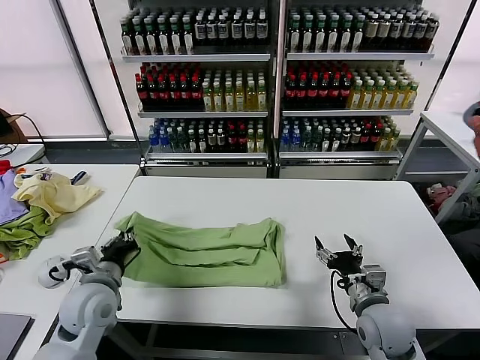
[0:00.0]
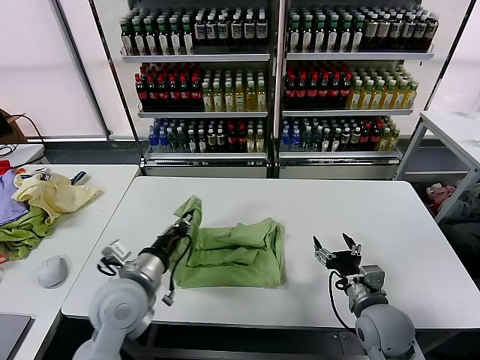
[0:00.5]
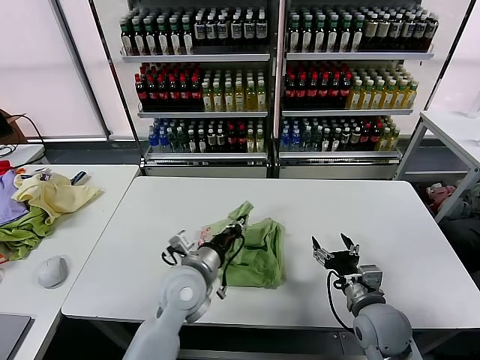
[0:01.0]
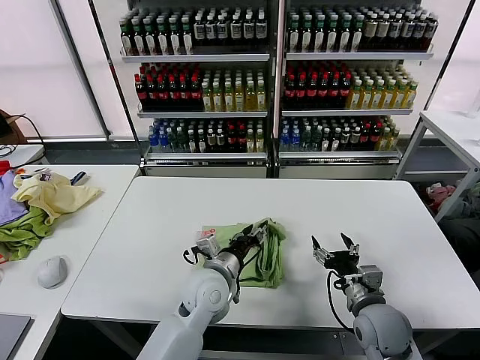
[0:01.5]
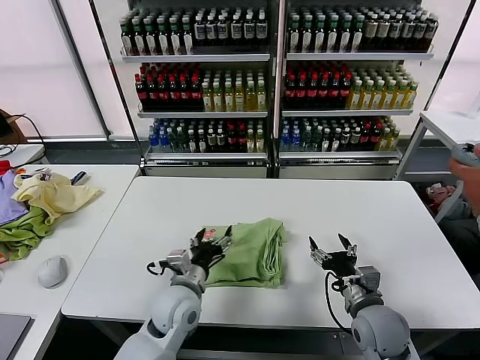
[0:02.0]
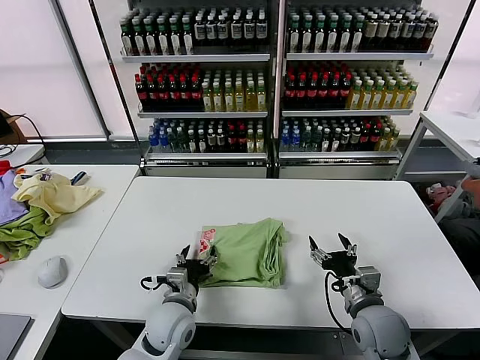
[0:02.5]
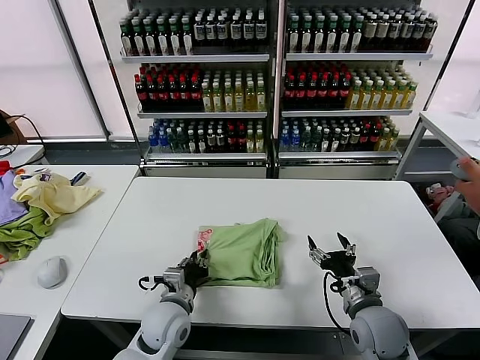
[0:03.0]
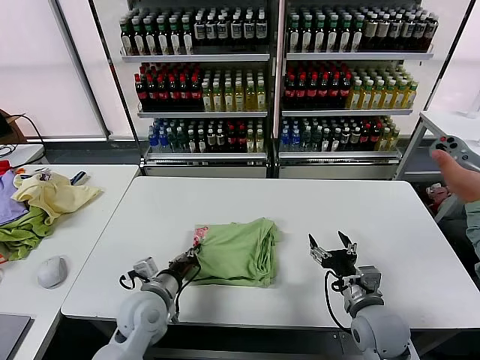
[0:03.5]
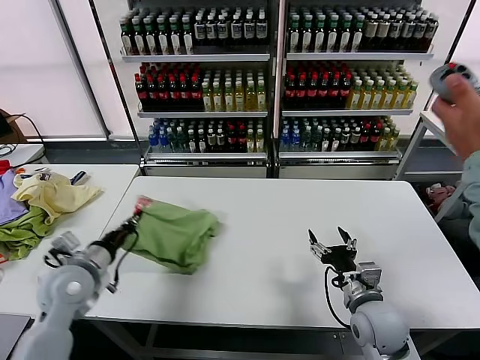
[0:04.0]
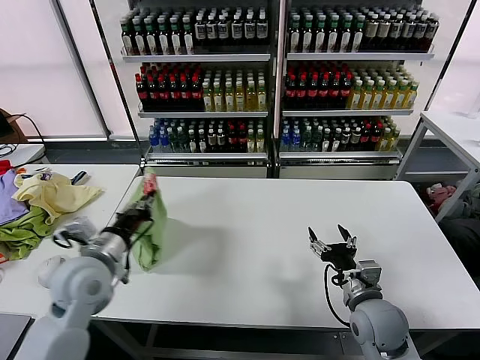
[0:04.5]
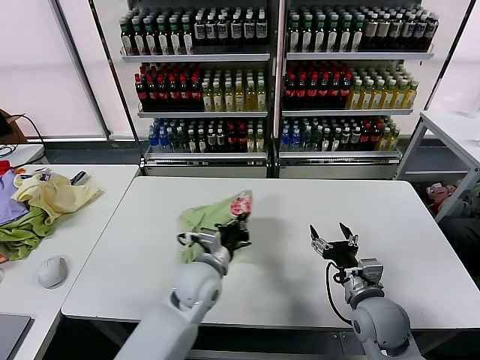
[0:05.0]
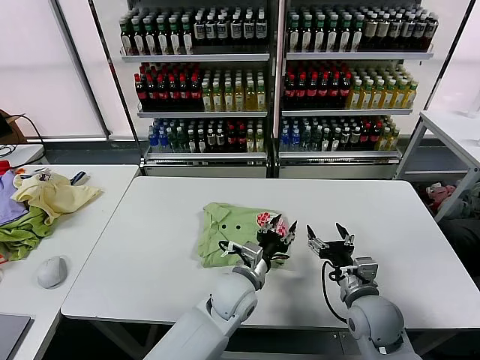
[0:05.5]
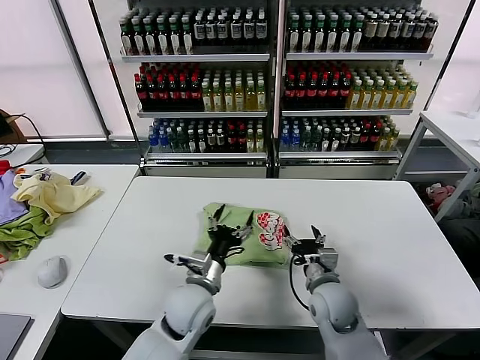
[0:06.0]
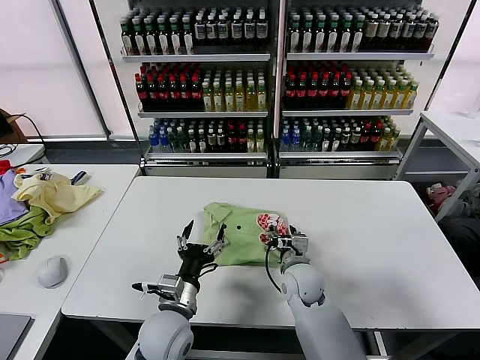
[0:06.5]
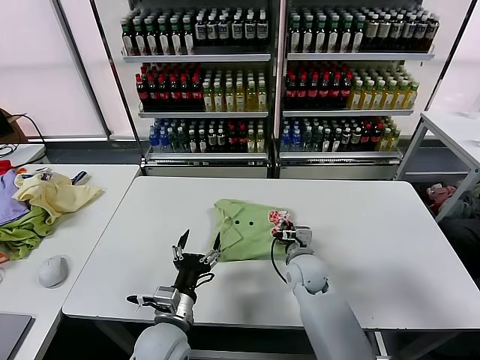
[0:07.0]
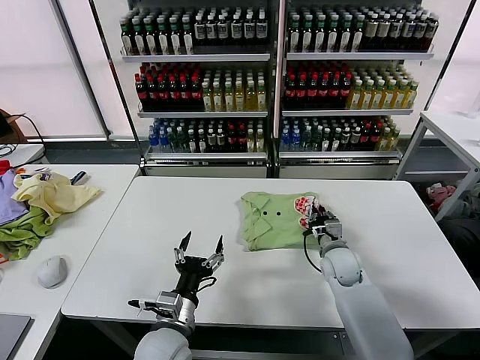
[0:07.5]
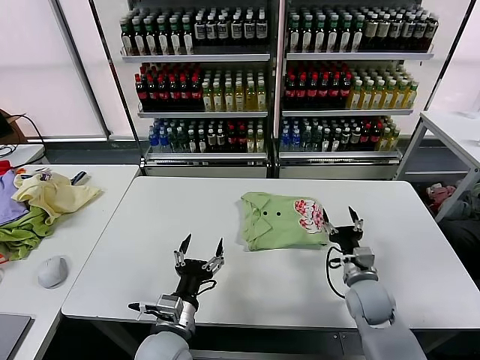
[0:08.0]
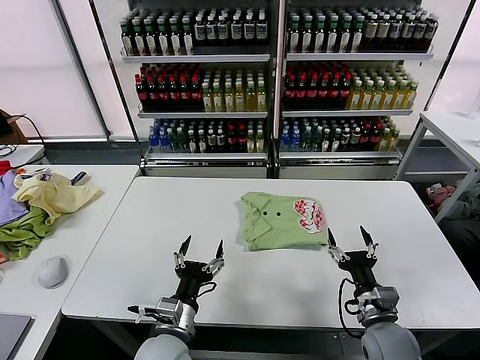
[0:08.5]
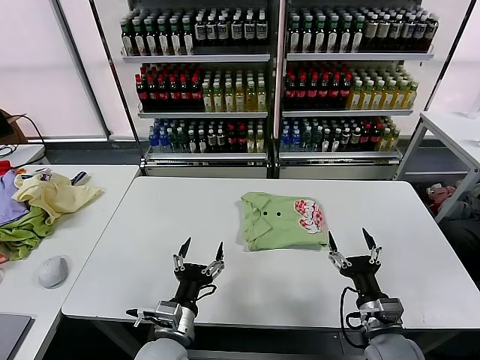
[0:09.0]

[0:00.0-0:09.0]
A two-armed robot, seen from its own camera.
Task of the whole recording: fold and organize the clothes.
Step, 0:00.0 to 0:01.5: use the left gripper to drag the left edge of the fabric to the left and folds it over the right edge.
Step, 0:02.0 to 0:05.0: Flip the folded clothes over with left gripper.
Step, 0:06.0 to 0:07.5: Drag the clothes to the center of the table.
0:00.0 to 0:02.0: The left gripper goes some 15 cm to the right, and opens.
0:02.0 to 0:04.5: The left gripper heads to the left and upward, covering approximately 20 cm, and closes up.
0:04.5 to 0:07.0: The left gripper is displaced to the right, downward and backward by some 20 cm, and opens; the right gripper travels forward and to the left by roughly 20 cm, and closes.
0:07.0 to 0:09.0: The right gripper moves backward and to the right, roughly 25 cm, and opens its fingers.
